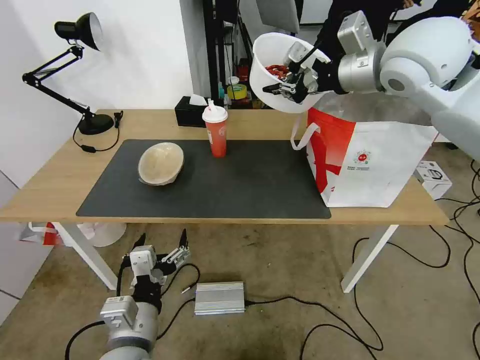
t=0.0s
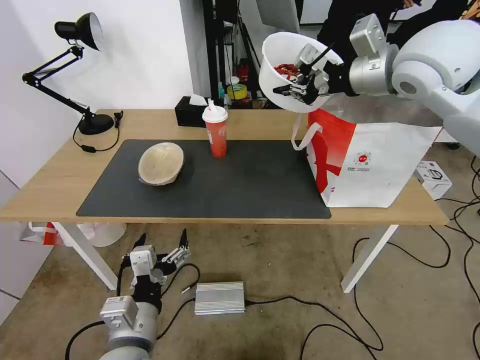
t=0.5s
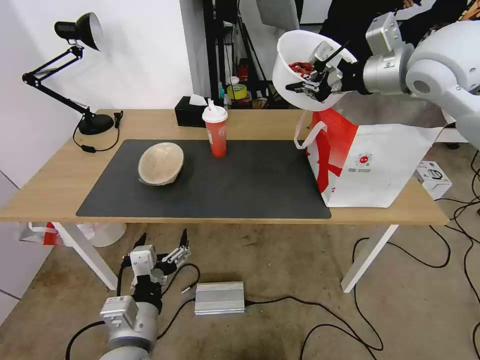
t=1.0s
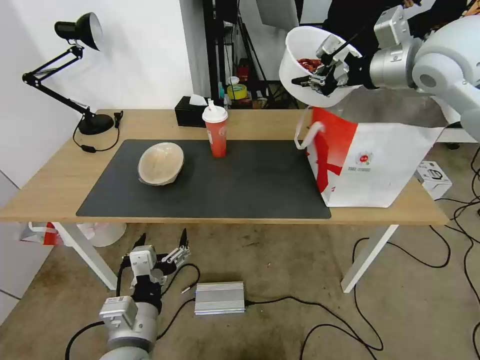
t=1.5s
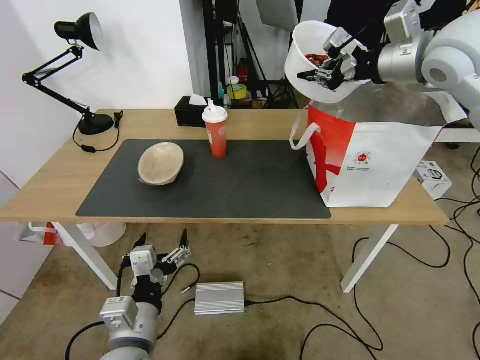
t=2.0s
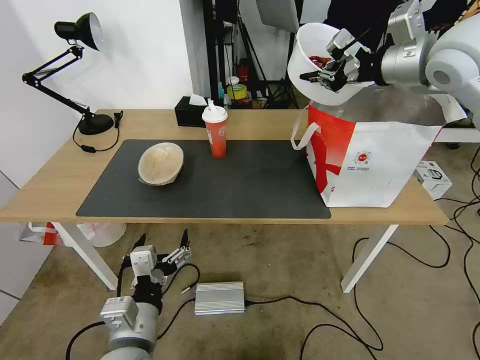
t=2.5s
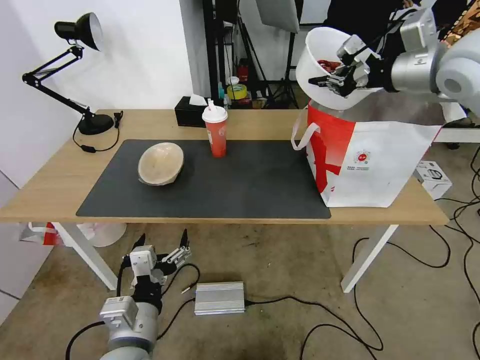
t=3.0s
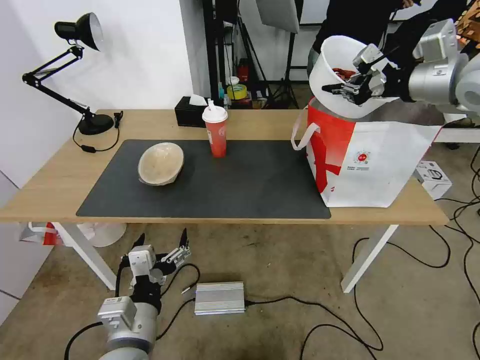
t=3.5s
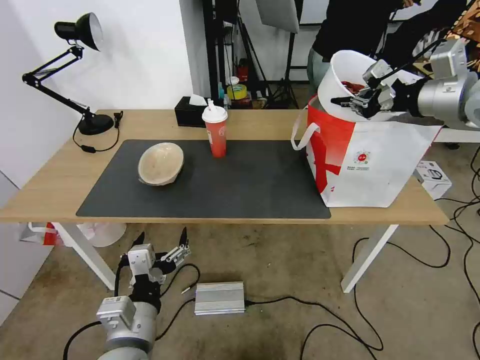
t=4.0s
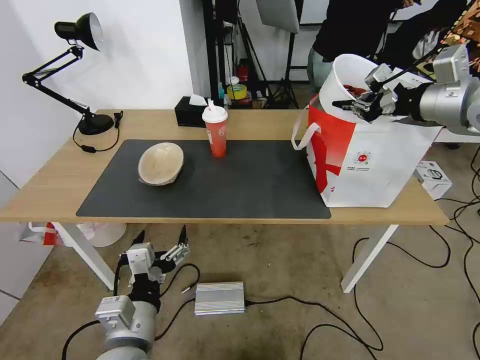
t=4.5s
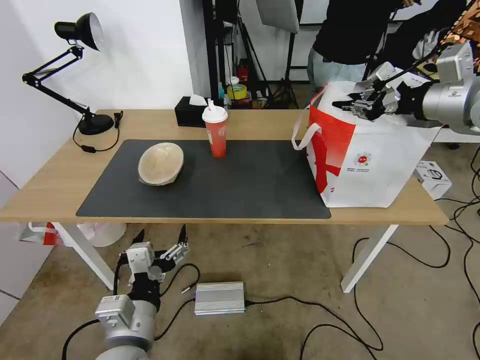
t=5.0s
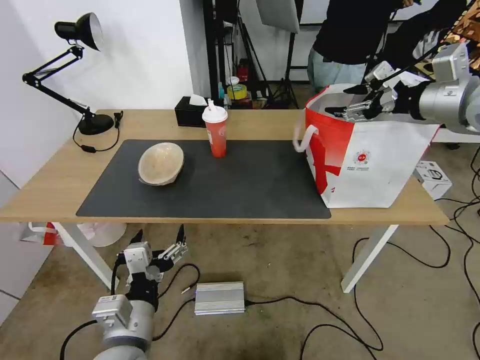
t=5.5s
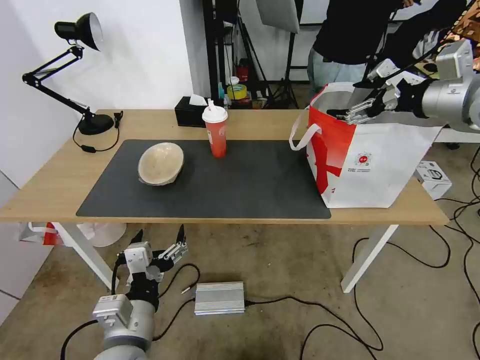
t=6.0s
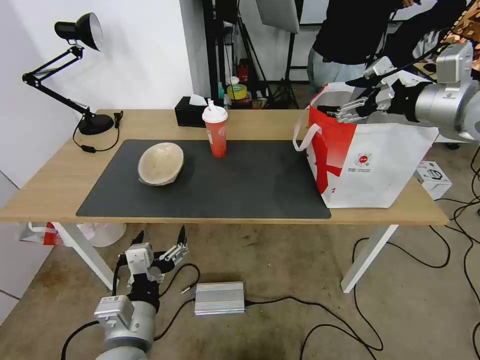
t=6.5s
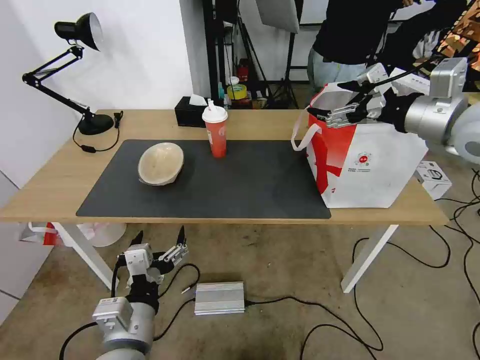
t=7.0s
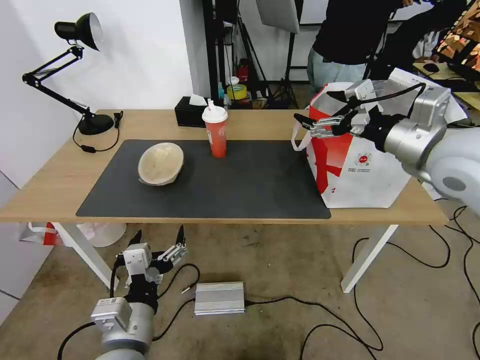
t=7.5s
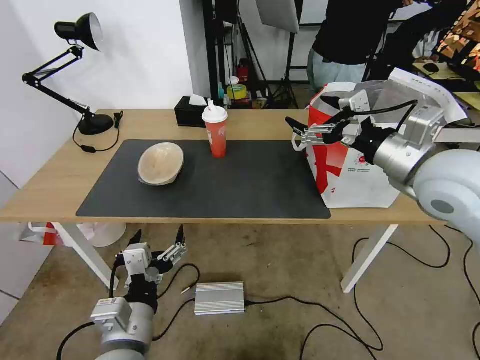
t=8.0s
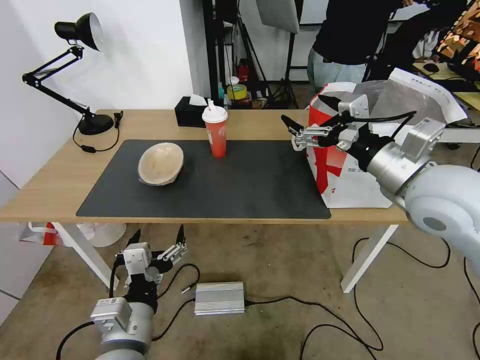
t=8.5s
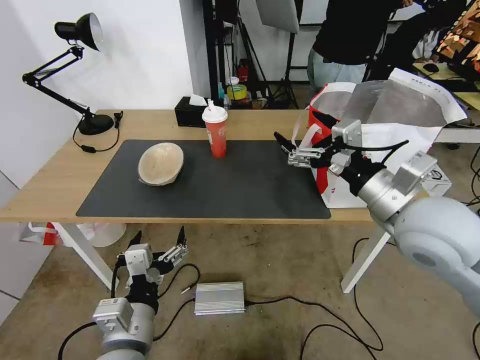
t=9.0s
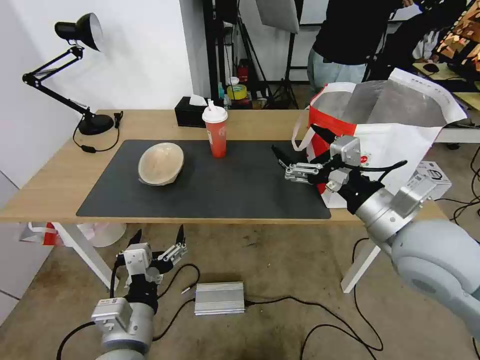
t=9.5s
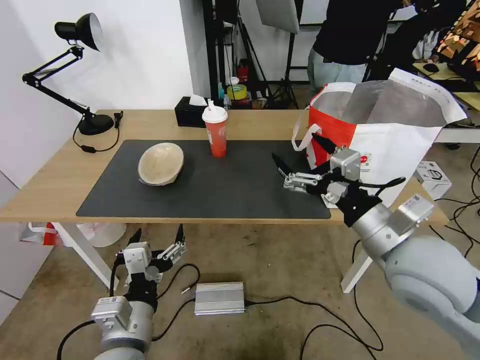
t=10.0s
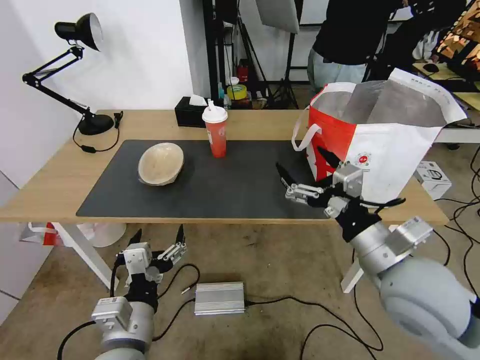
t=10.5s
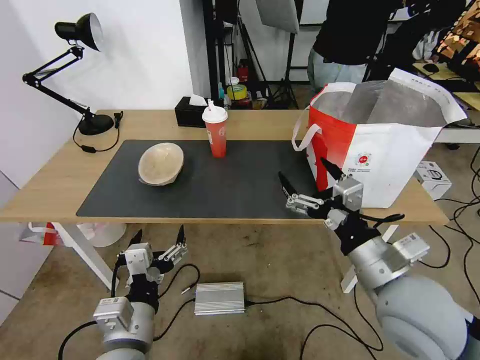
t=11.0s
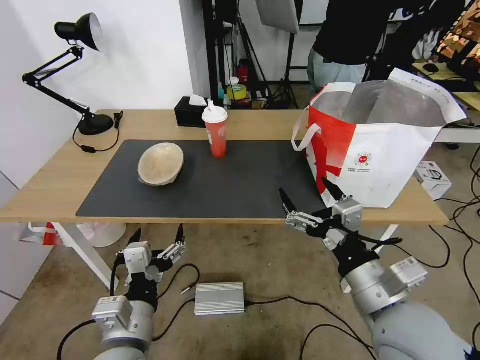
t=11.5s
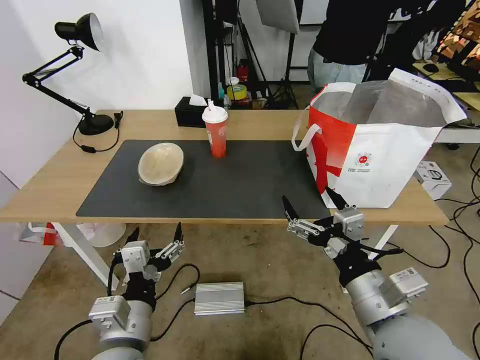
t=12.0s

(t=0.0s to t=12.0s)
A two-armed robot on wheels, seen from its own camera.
Task of the whole recording: Pick up the trash from the table and place it into the takeout bag.
t=0.0s - t=2.0s: The right gripper moves to the right, some 5 cm.
t=2.0s - t=4.0s: The right gripper goes some 5 cm to the right.
t=4.0s - t=6.0s: The right gripper opens.
t=6.0s - t=8.0s: The right gripper is displaced downward, to the left and backward by about 15 cm.
t=8.0s - t=10.0s: The right gripper shifts approximately 10 cm backward and downward.
t=10.0s - t=12.0s: The right gripper moves backward and downward, roughly 10 cm.

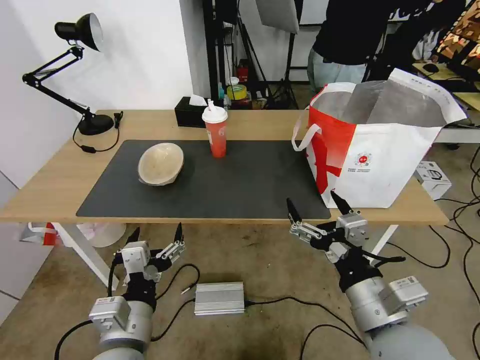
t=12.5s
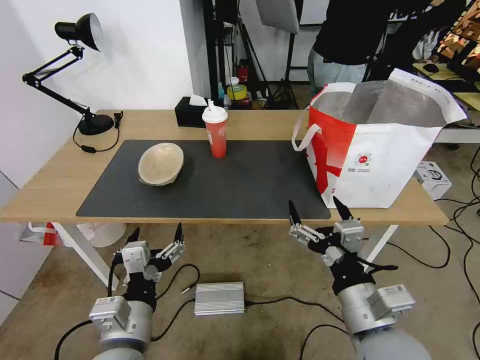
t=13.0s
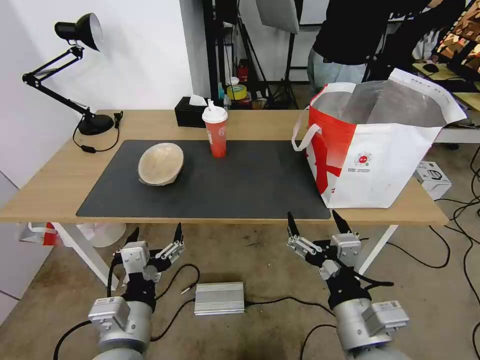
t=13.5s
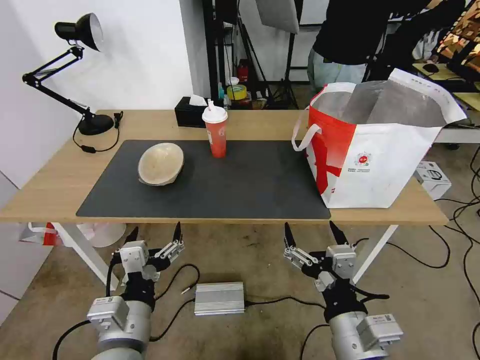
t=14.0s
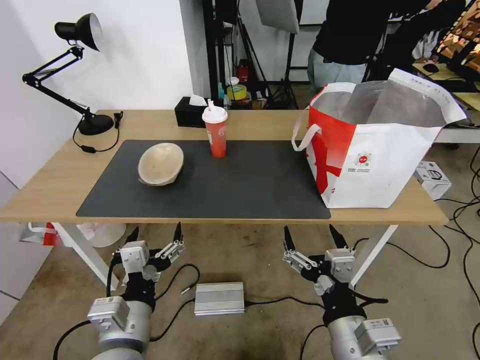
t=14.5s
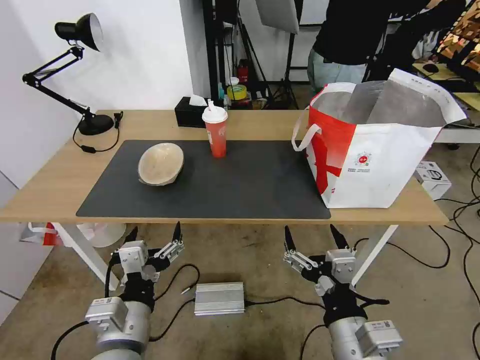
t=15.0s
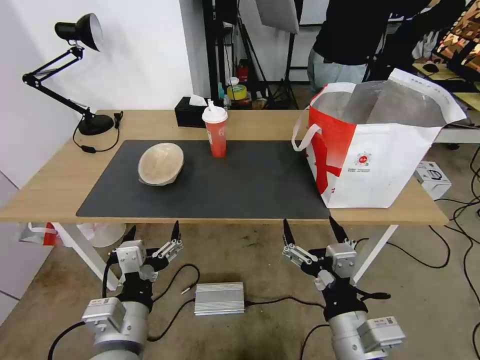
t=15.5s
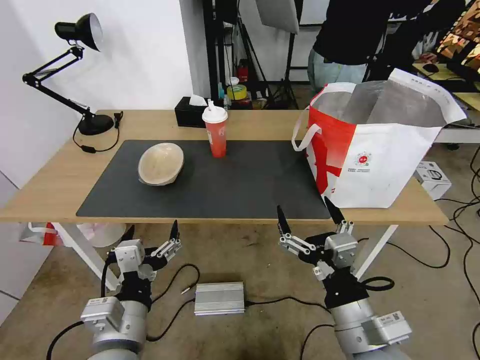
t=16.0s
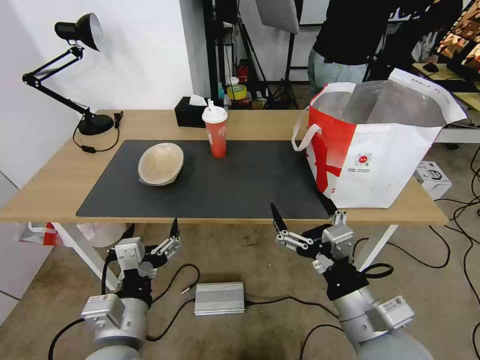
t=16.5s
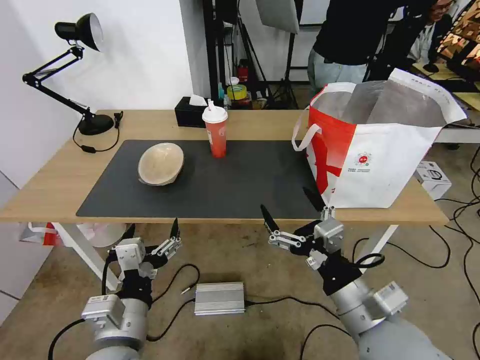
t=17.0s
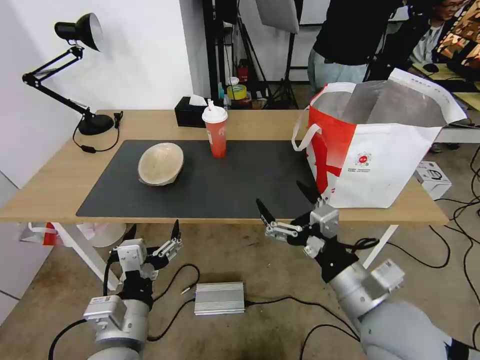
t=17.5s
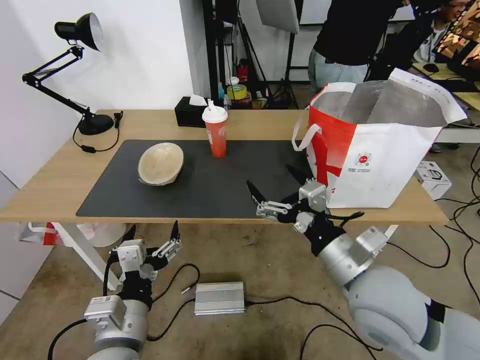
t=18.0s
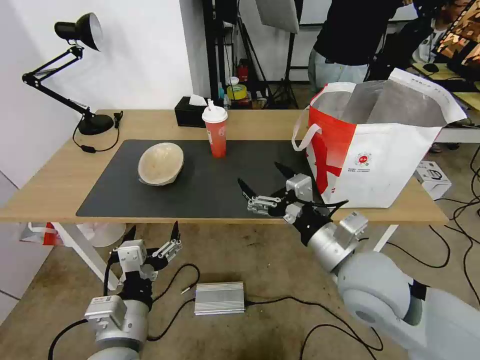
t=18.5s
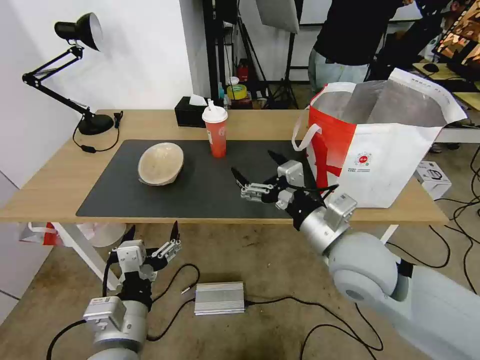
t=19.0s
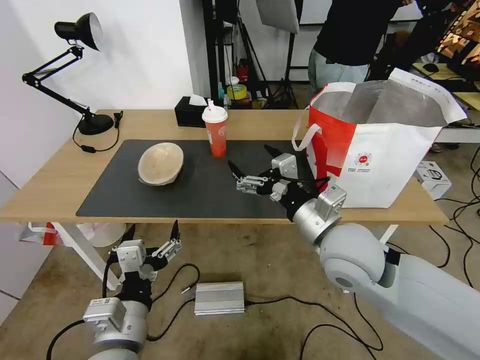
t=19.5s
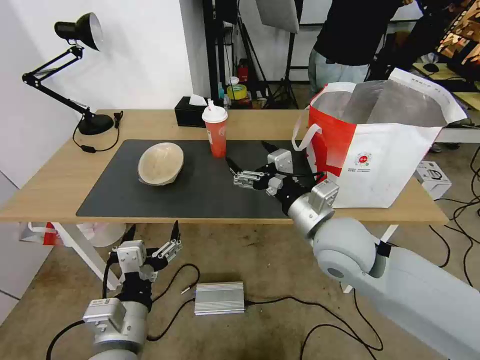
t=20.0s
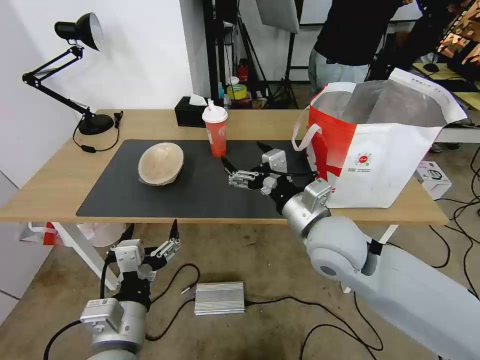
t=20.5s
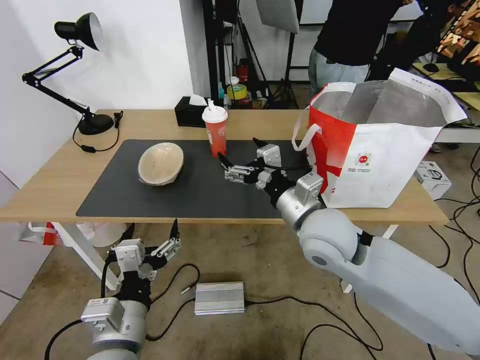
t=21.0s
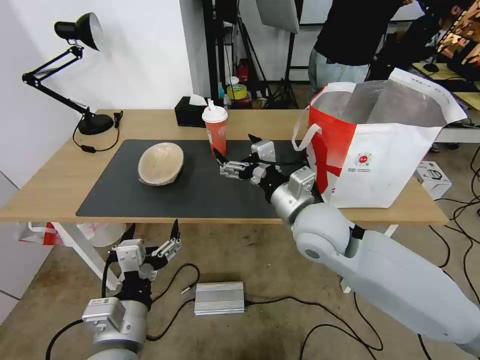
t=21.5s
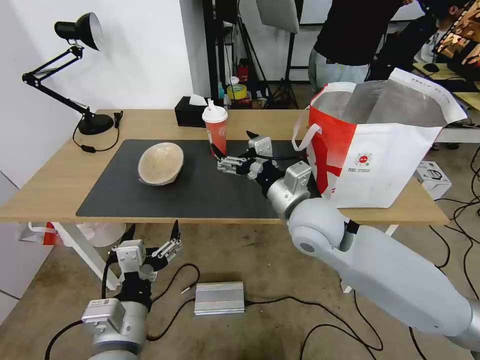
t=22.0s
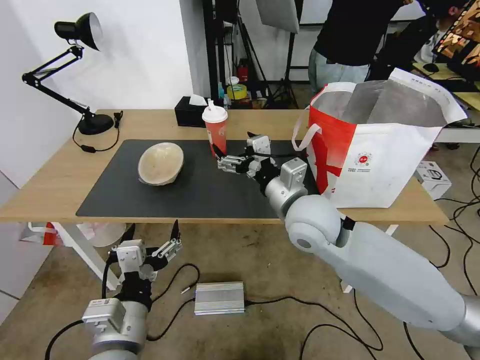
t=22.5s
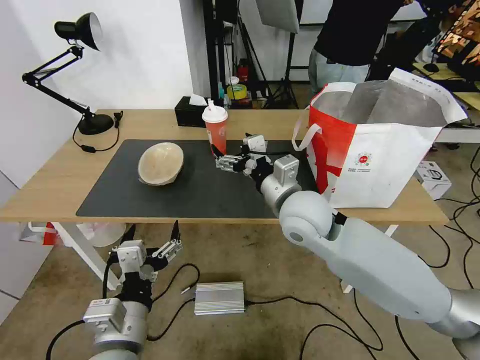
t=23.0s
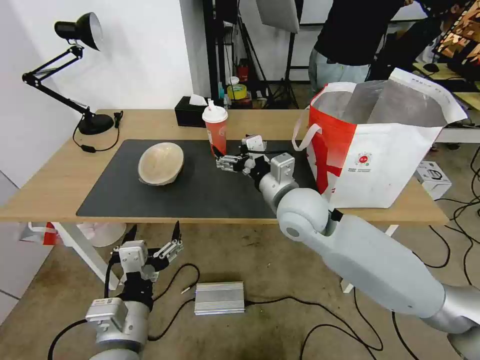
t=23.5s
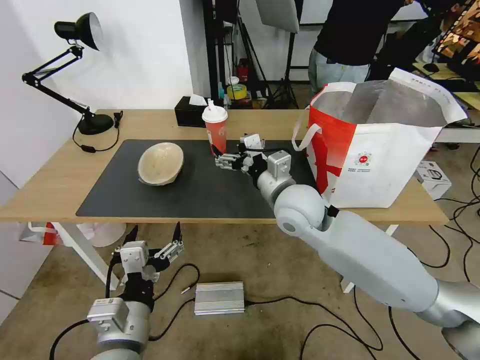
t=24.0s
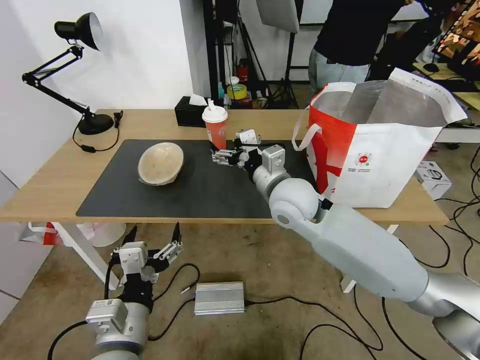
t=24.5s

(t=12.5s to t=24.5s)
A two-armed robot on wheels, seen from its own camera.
Task of the whole recording: Pick up the trash from the table and place it into the takeout bag.
t=12.5s - t=14.5s: The right gripper shifts by some 5 cm.
t=14.5s - t=16.5s: The right gripper ends up about 5 cm from where it was.
t=16.5s - t=18.5s: The right gripper is displaced forward by about 10 cm.
t=18.5s - t=20.5s: The right gripper moves forward, about 5 cm.
t=20.5s - t=22.5s: The right gripper ends up roughly 5 cm from where it was.
t=22.5s - t=24.5s: The right gripper heads forward, covering some 5 cm.

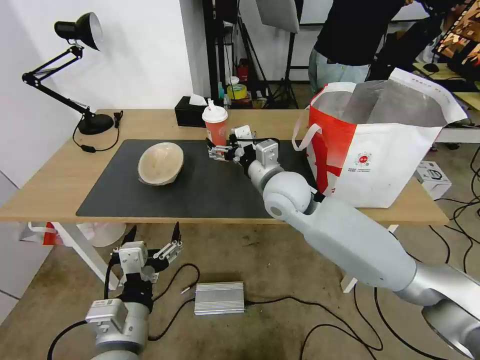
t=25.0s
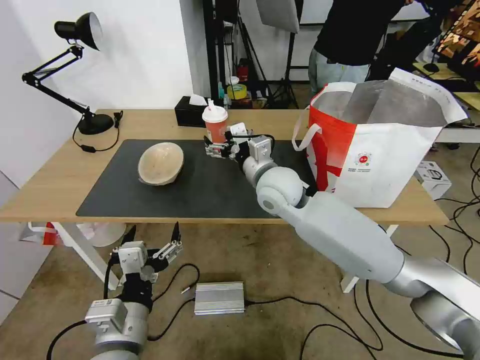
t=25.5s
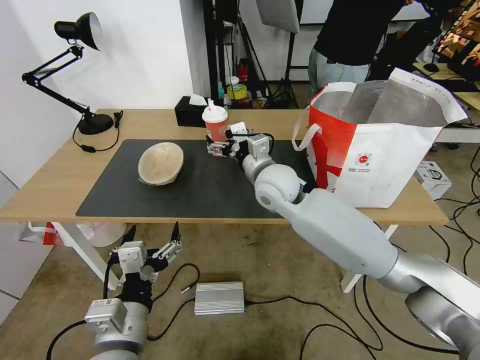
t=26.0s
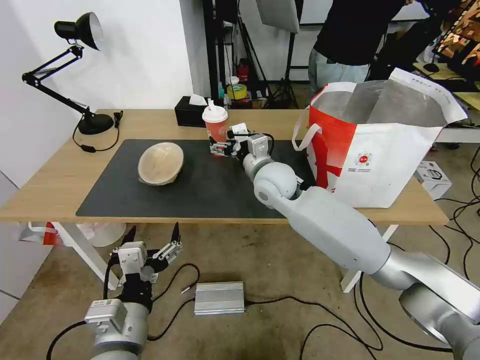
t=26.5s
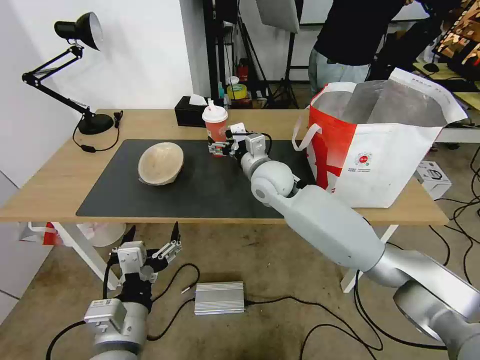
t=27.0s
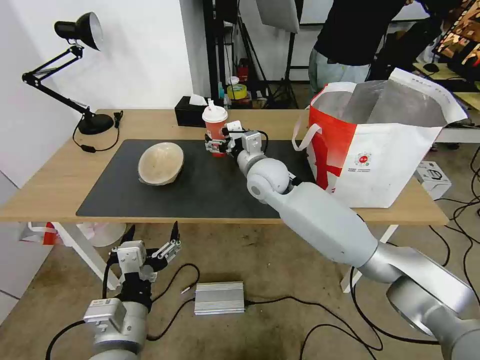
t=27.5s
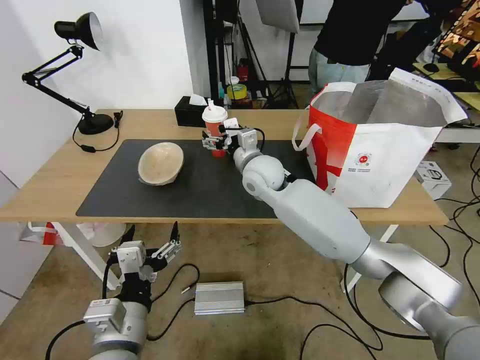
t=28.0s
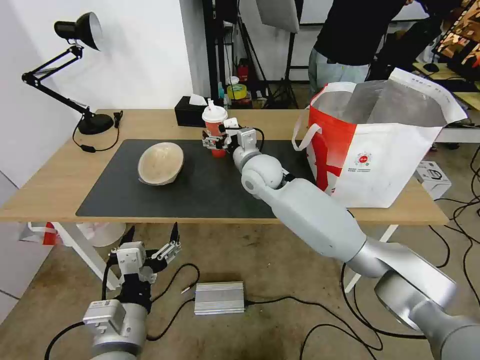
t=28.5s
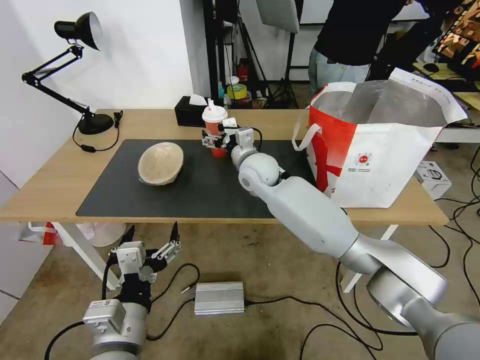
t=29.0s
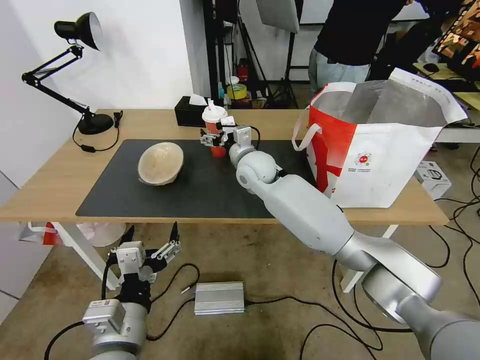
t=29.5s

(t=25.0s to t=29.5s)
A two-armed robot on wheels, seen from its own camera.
Task of the whole recording: Pick up the trash from the table and place it into the takeout bag.
t=25.0s - t=27.0s: The right gripper is displaced forward by approximately 5 cm.
t=27.0s - t=29.5s: The right gripper changes place by about 5 cm.
